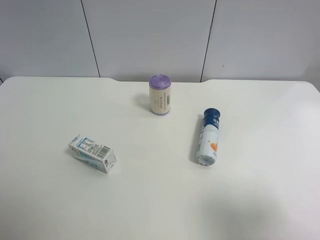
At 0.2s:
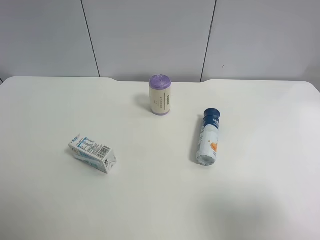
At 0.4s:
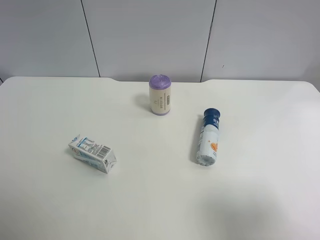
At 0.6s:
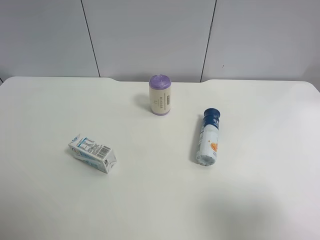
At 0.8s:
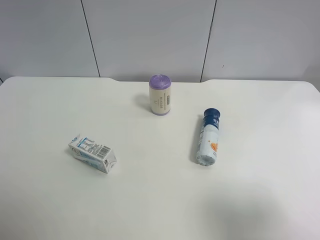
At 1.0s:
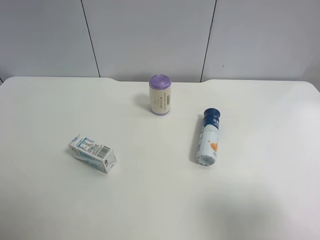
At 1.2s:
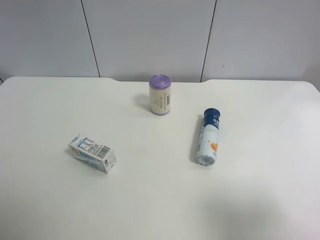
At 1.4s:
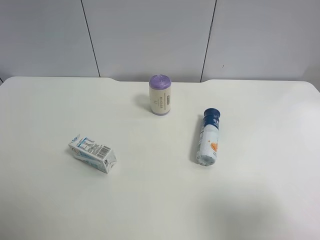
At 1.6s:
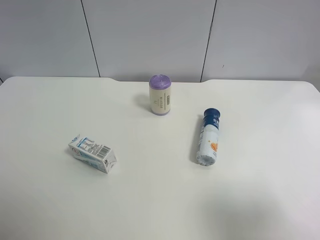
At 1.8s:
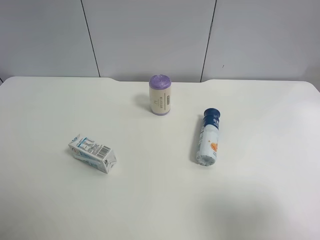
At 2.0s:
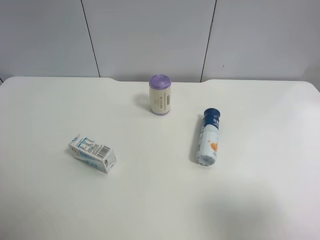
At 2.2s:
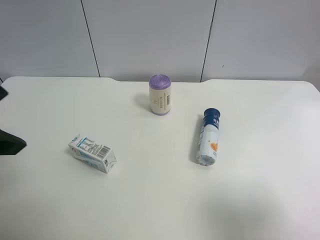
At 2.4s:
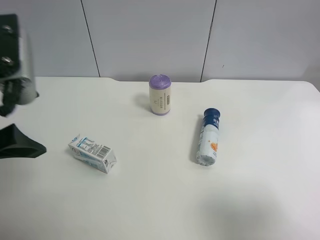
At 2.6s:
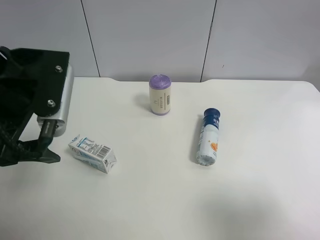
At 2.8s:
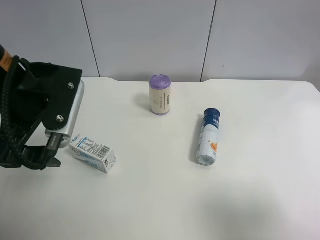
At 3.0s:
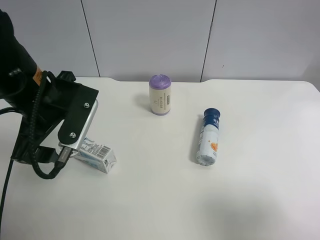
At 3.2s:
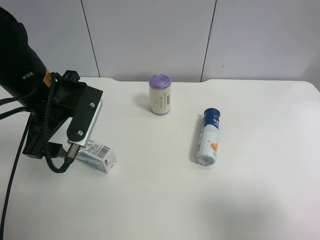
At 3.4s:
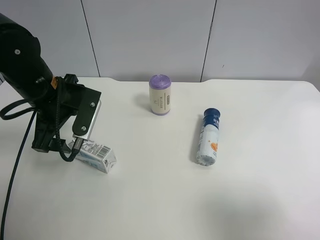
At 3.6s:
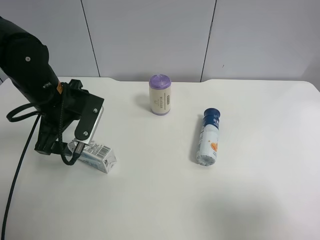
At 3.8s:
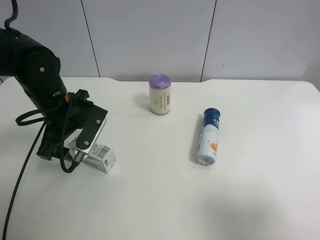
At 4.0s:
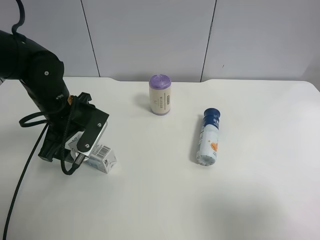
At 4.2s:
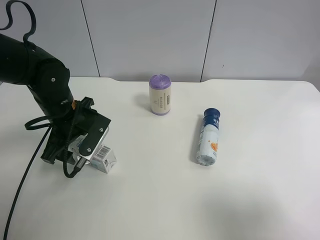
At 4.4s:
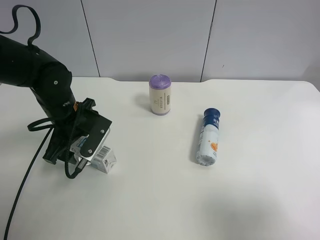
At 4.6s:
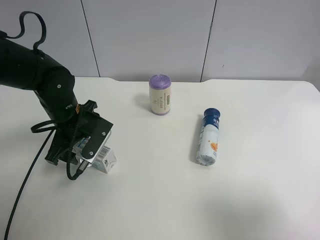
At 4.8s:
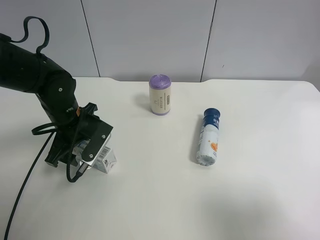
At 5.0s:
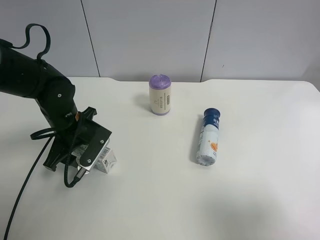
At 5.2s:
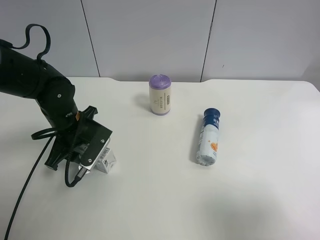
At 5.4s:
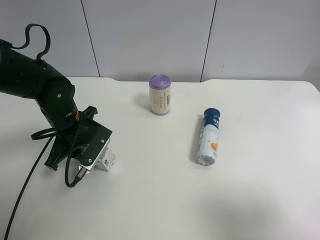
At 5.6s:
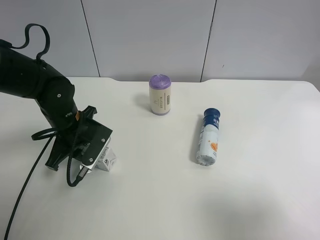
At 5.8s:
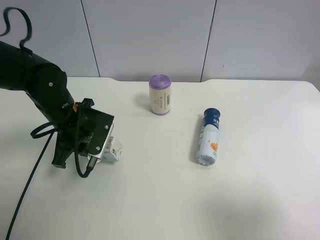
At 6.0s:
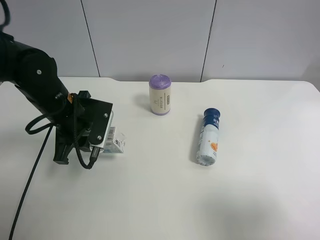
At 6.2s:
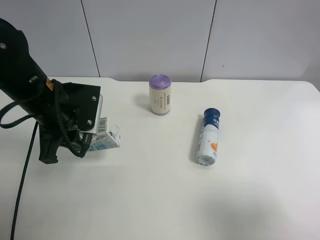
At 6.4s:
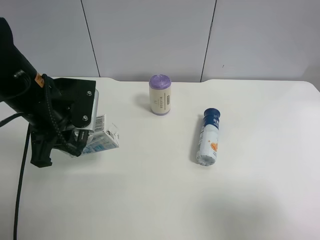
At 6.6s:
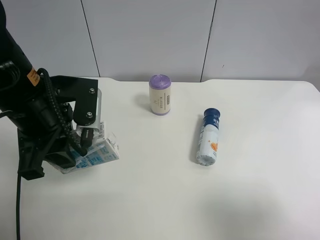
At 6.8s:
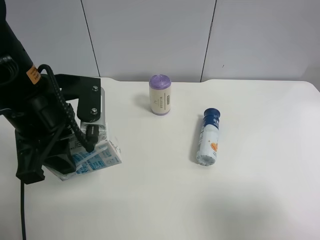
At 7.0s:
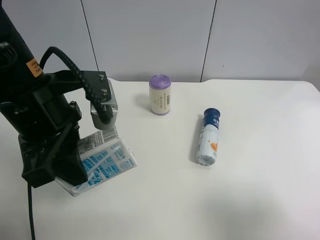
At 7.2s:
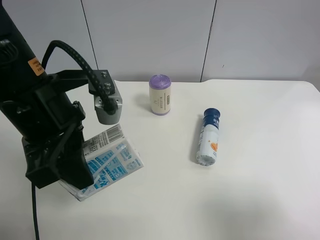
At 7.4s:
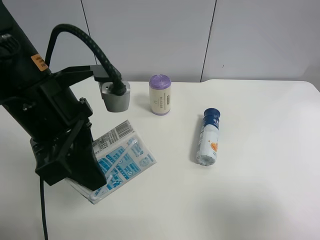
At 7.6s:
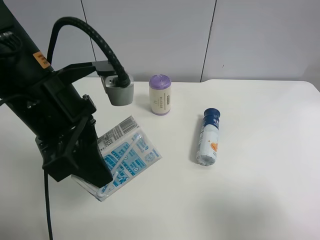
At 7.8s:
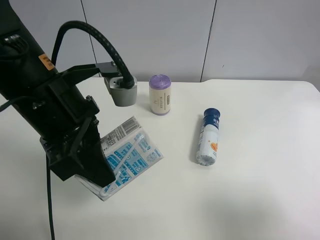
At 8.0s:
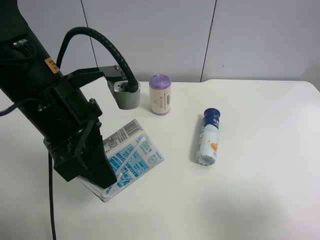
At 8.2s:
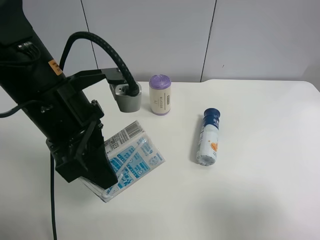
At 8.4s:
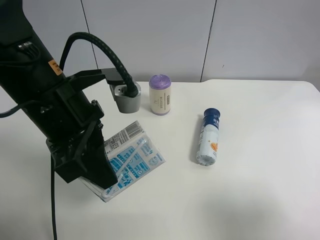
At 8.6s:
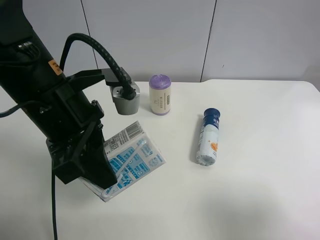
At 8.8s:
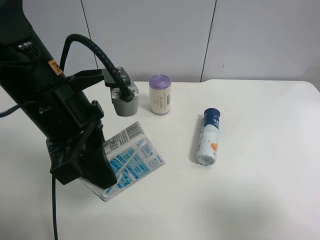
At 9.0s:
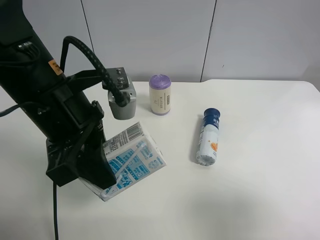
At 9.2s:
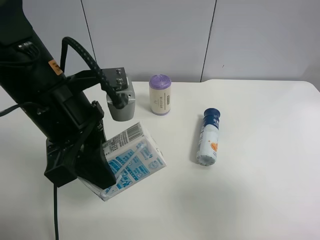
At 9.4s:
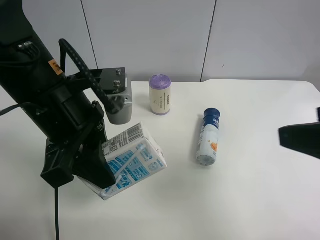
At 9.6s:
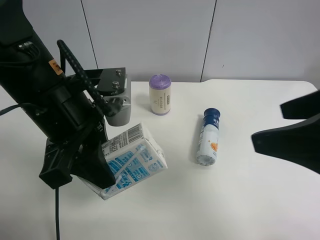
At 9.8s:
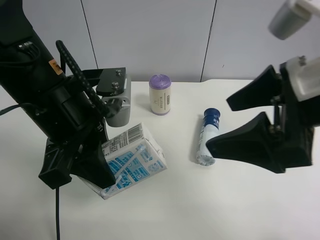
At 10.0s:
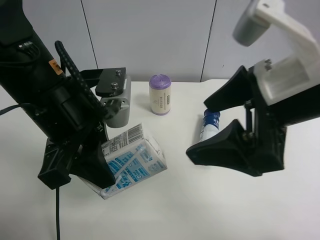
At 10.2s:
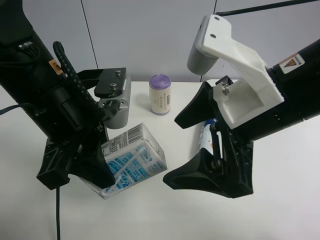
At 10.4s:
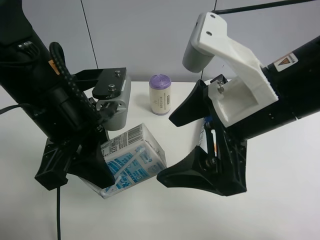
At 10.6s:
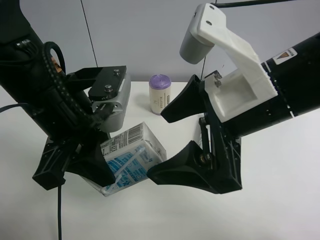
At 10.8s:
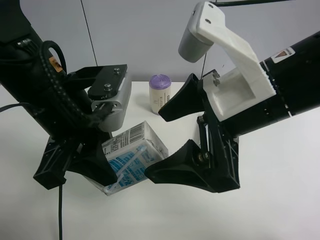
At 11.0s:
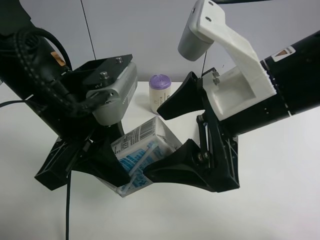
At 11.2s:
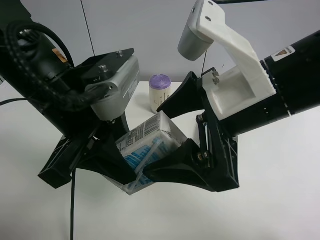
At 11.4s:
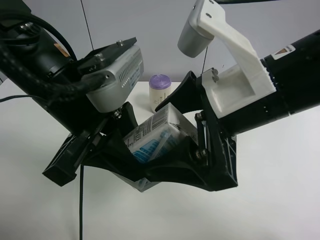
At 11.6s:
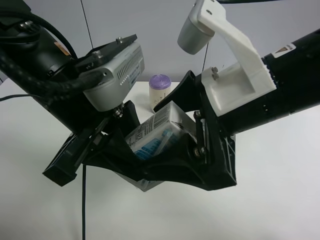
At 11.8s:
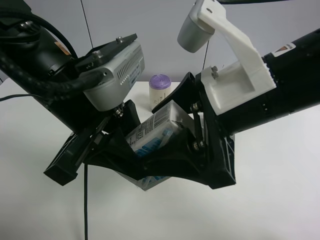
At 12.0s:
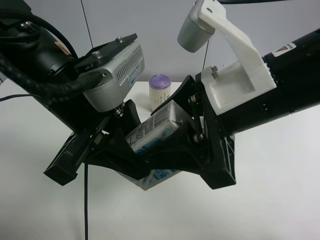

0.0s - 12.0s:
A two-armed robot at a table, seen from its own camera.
Task of the whole recording: use the left gripper to pick up the item and transfer it from the left gripper to the right gripper.
1.6s - 3.0s: The left gripper heads forward and to the right, covering roughly 25 cm.
3.0s - 4.4s: The left gripper is displaced downward and forward by approximately 10 cm.
4.4s - 6.0s: The left gripper closes up.
6.0s - 7.6s: The left gripper is displaced upward and backward by some 15 cm.
7.6s - 9.0s: The grippers stay close to where they were, moving slightly.
9.0s - 10.4s: The right gripper moves to the left and forward, roughly 20 cm.
10.4s - 12.0s: The right gripper closes.

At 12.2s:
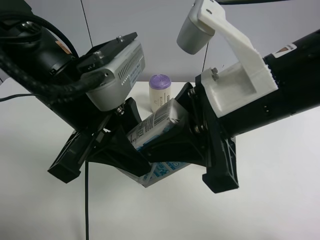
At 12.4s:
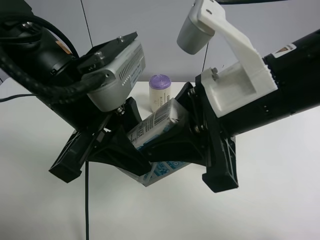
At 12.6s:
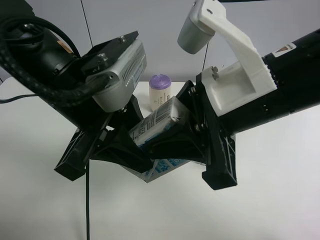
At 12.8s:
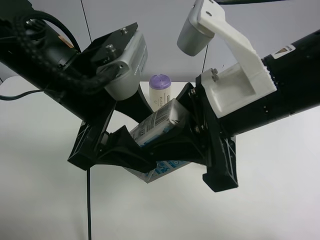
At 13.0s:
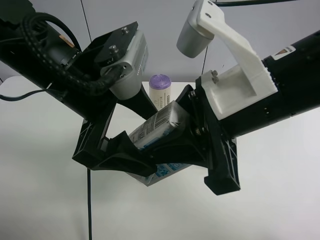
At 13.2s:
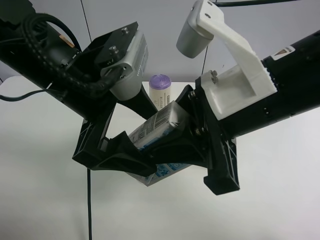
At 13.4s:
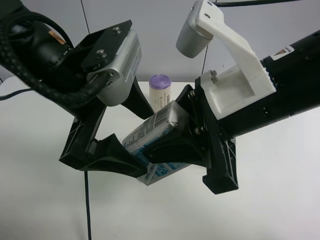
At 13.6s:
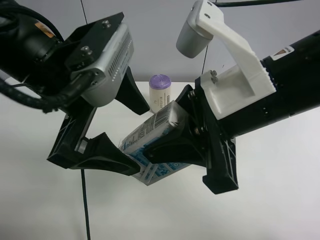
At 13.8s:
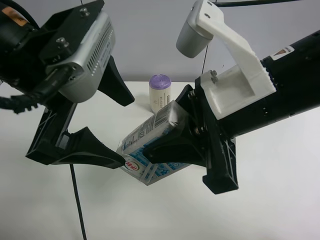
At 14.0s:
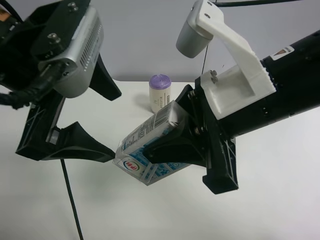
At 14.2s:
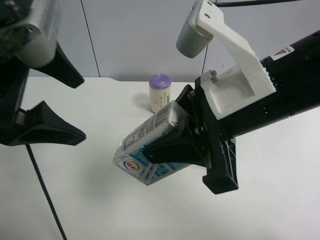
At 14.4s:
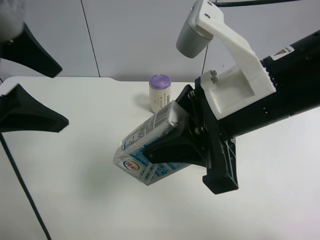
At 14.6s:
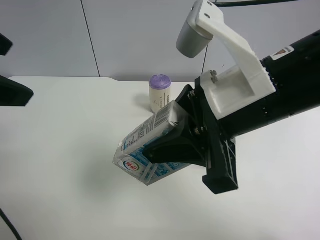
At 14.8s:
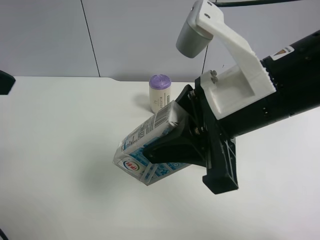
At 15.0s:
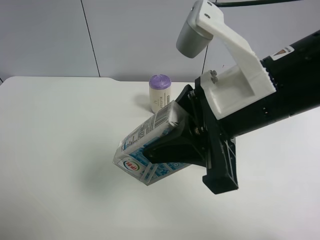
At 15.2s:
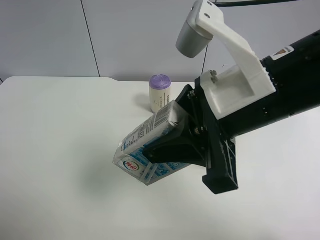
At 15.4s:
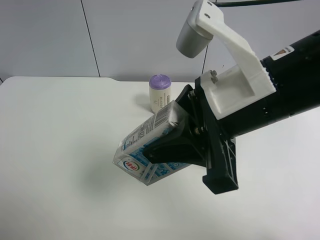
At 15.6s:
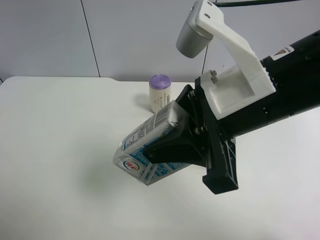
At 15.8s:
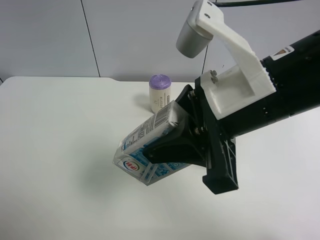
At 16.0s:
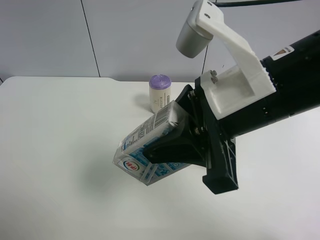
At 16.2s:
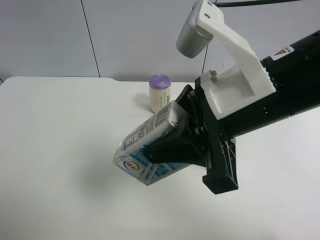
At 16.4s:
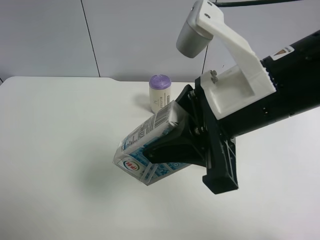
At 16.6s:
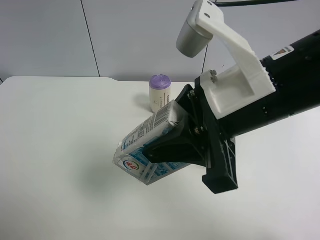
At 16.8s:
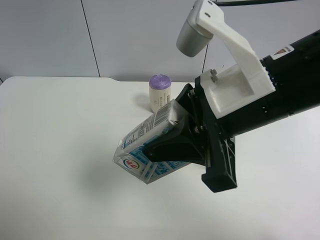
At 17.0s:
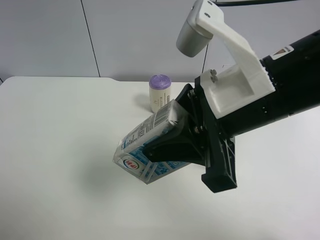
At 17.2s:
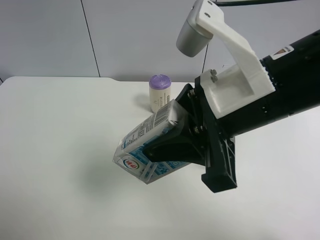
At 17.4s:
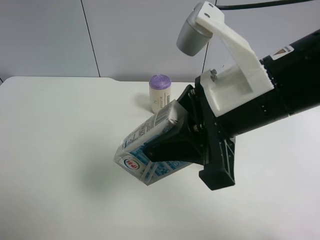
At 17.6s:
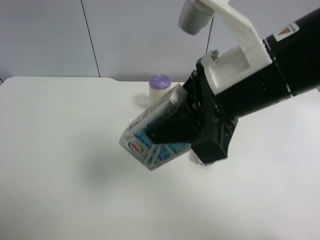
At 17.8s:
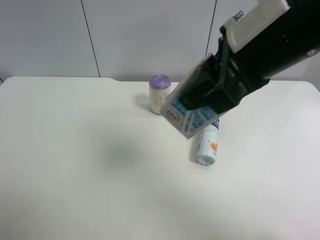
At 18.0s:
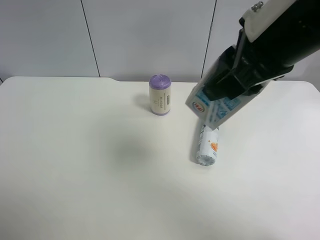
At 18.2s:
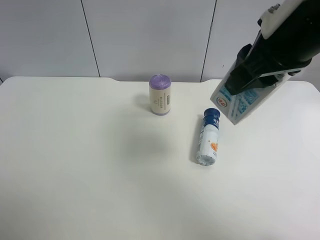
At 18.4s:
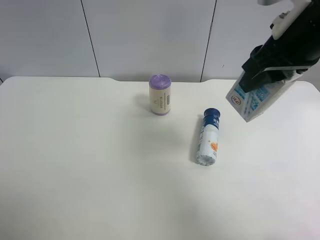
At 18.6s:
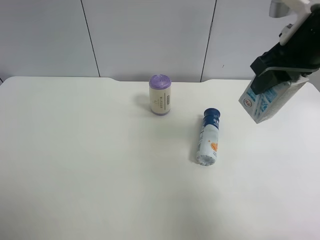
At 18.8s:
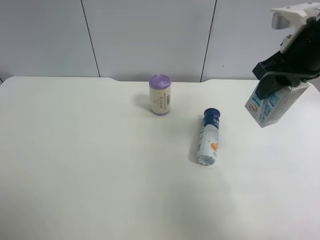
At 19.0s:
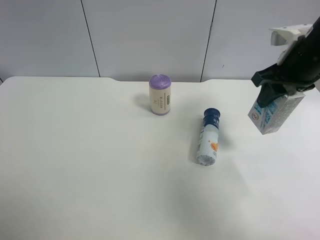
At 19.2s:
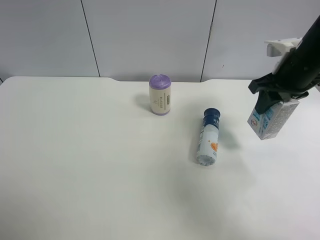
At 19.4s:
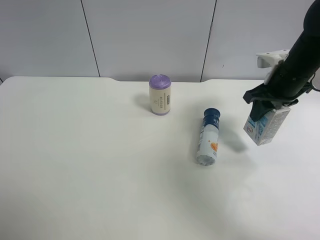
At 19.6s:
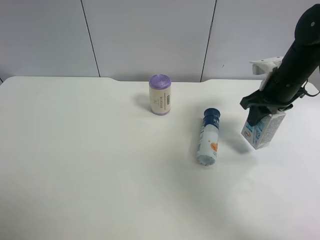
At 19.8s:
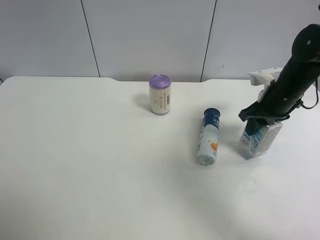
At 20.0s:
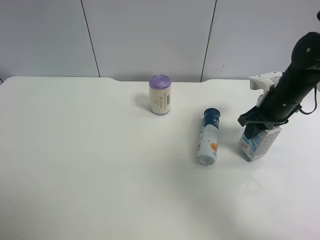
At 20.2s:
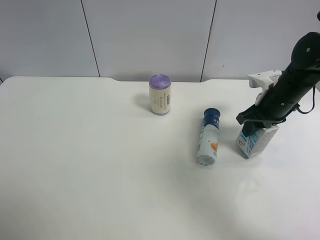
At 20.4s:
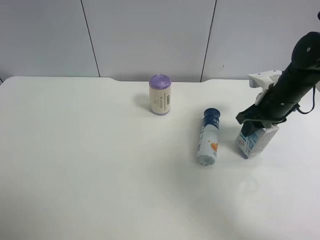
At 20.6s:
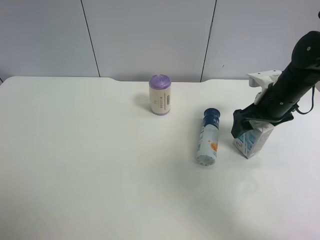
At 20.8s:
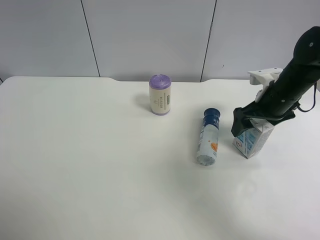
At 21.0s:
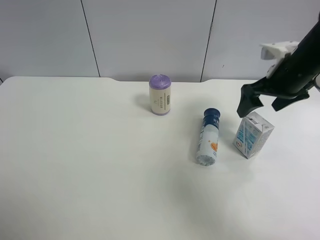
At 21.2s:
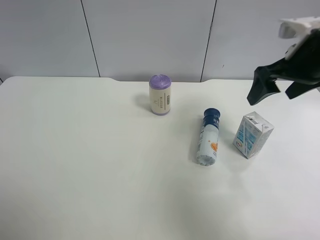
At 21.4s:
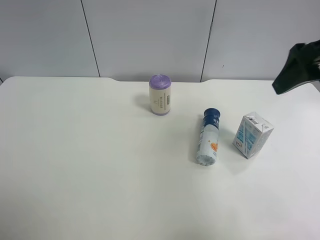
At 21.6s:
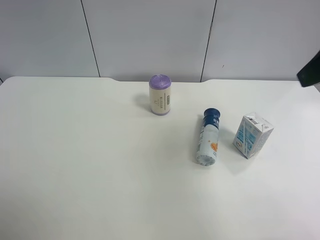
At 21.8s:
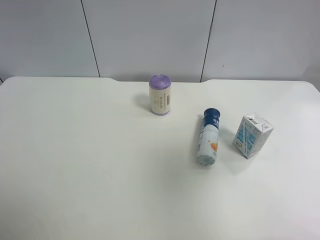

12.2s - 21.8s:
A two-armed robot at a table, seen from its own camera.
Task of the whole recording: use the left gripper to pick up the item and transfer it from the left gripper to the right gripper.
12.2s - 13.8s: The left gripper opens up.
13.8s - 15.4s: The left gripper travels to the left and backward by approximately 20 cm.
15.4s - 17.0s: The left gripper shifts about 10 cm downward and backward.
17.0s - 18.6s: The right gripper travels to the right and forward by about 15 cm.
18.6s - 20.2s: The right gripper shifts roughly 15 cm downward.
20.2s - 21.8s: The right gripper travels backward and upward by about 30 cm, and opens its fingers.

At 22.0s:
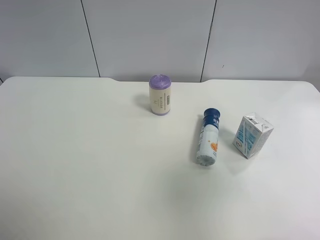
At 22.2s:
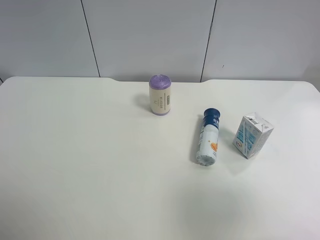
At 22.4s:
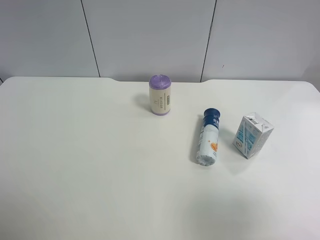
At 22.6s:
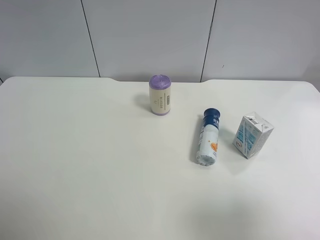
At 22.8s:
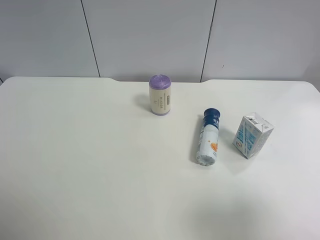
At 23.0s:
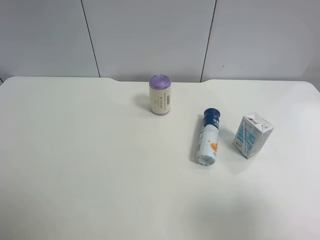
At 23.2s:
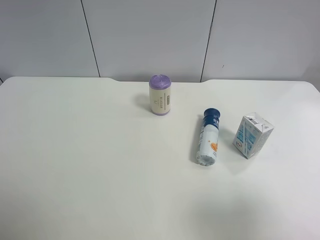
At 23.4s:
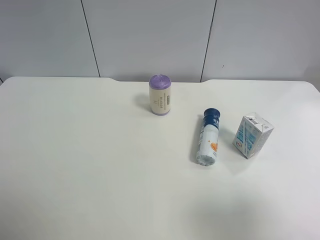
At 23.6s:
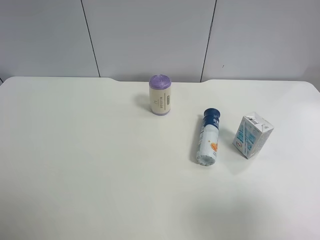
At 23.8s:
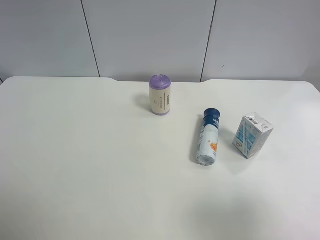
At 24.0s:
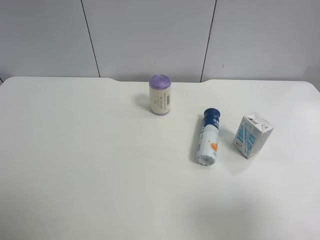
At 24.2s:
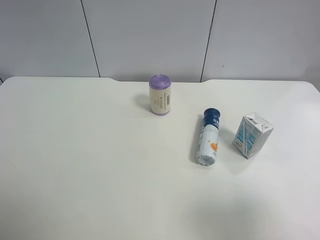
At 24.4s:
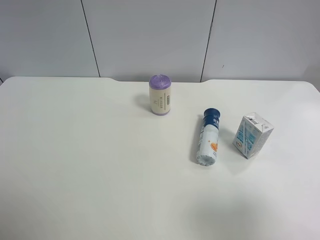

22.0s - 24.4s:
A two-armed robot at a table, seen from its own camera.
Task of the whole recording: use the left gripper to pick up the item and transfer it from the left gripper to the right gripper.
22.0s - 23.2s: The right gripper shifts roughly 10 cm downward and backward.
23.2s - 24.4s: Neither gripper changes place.
